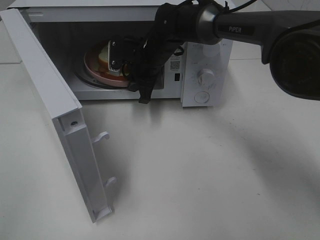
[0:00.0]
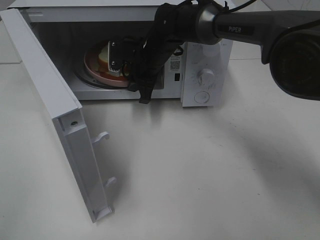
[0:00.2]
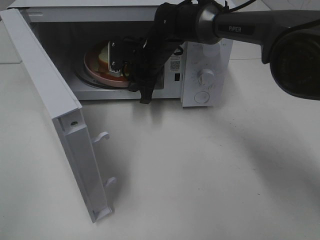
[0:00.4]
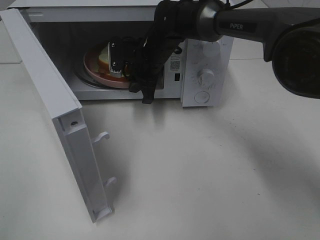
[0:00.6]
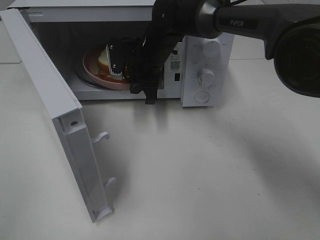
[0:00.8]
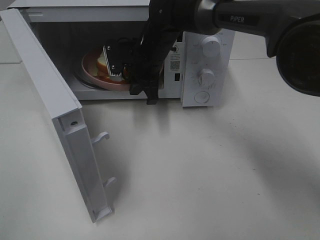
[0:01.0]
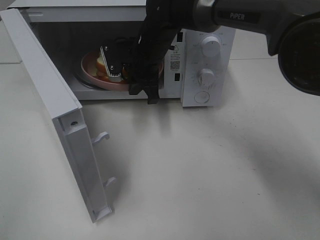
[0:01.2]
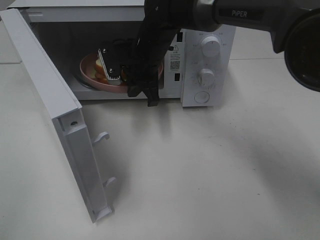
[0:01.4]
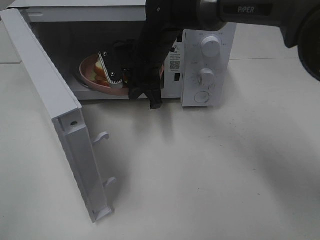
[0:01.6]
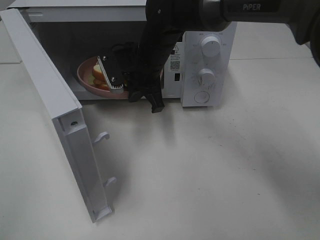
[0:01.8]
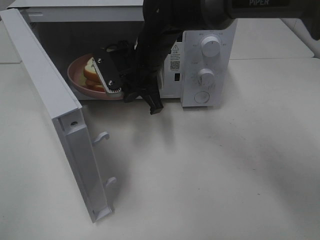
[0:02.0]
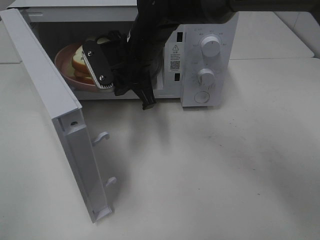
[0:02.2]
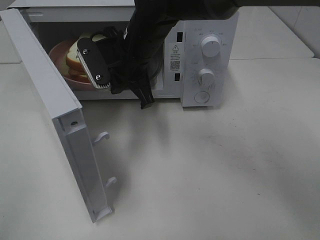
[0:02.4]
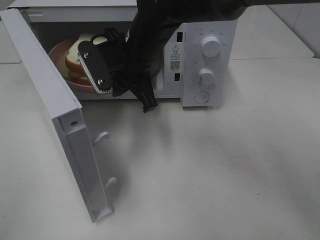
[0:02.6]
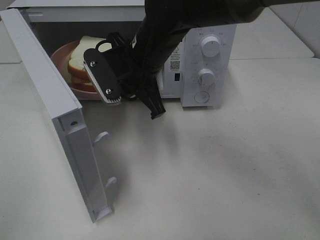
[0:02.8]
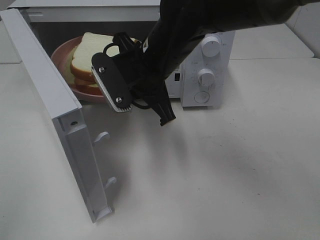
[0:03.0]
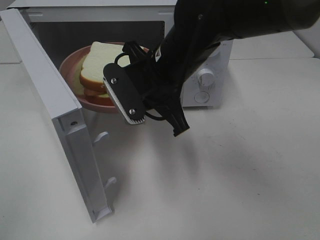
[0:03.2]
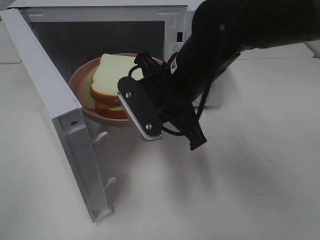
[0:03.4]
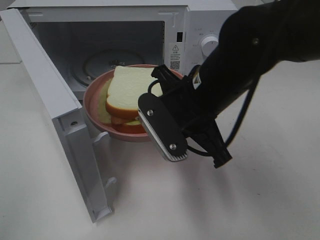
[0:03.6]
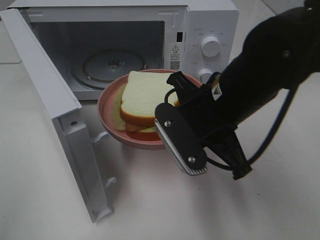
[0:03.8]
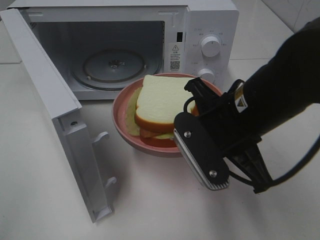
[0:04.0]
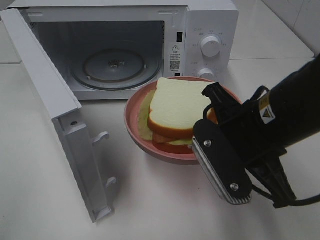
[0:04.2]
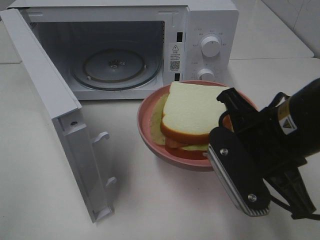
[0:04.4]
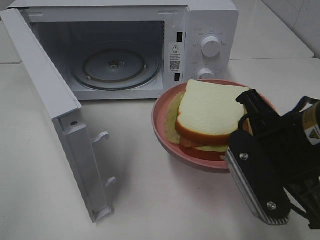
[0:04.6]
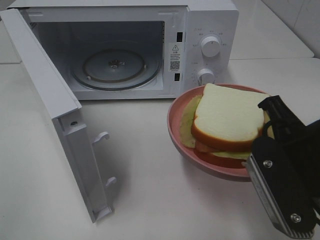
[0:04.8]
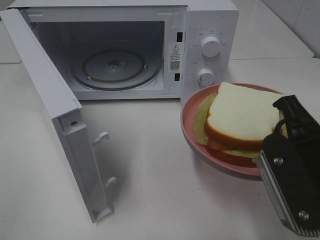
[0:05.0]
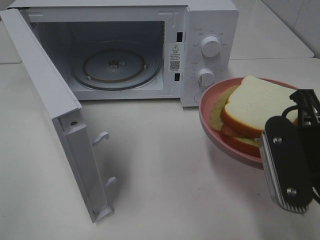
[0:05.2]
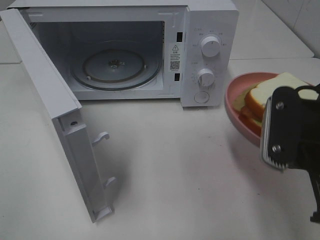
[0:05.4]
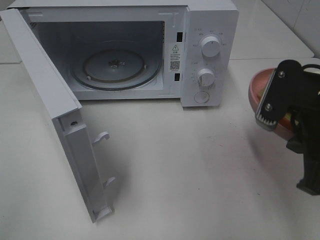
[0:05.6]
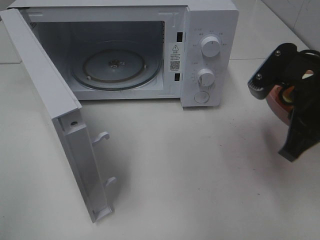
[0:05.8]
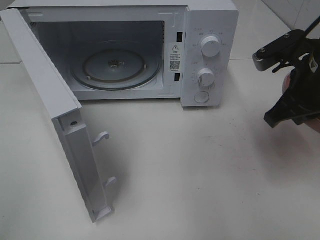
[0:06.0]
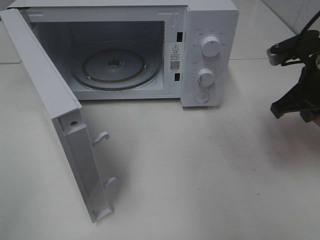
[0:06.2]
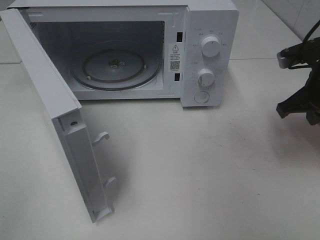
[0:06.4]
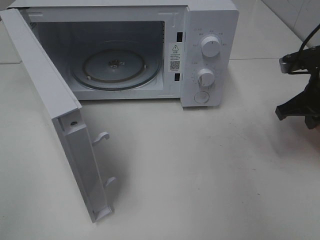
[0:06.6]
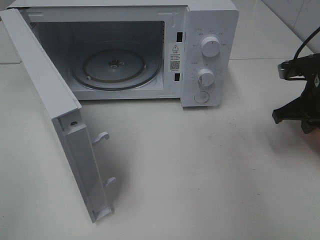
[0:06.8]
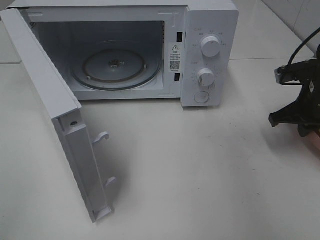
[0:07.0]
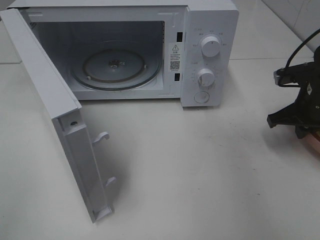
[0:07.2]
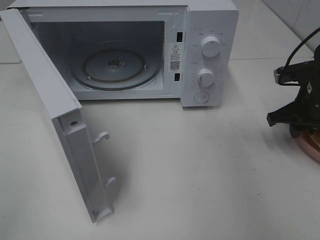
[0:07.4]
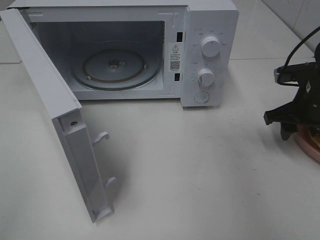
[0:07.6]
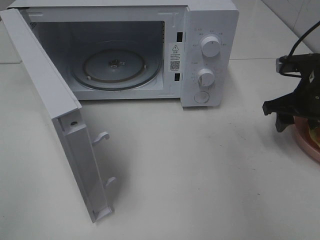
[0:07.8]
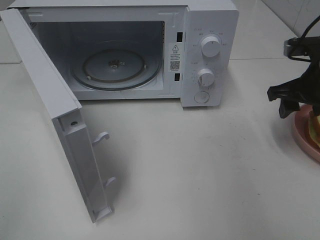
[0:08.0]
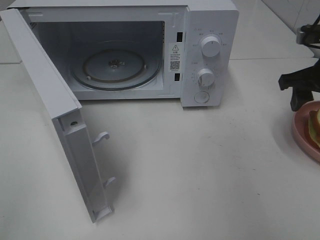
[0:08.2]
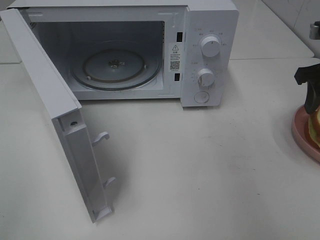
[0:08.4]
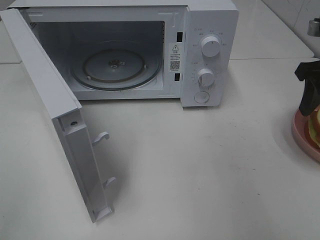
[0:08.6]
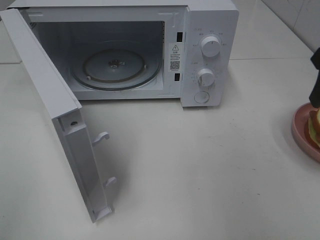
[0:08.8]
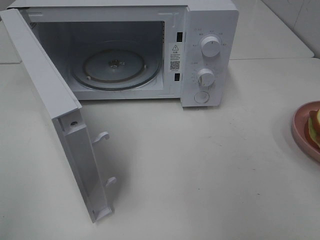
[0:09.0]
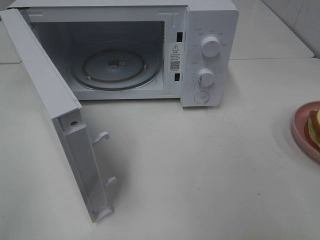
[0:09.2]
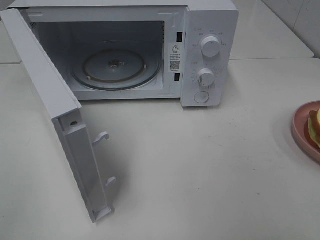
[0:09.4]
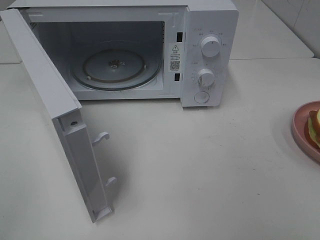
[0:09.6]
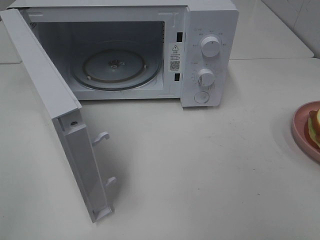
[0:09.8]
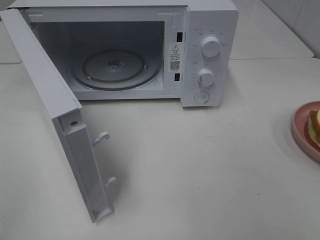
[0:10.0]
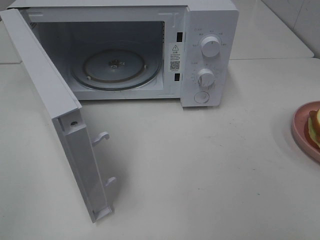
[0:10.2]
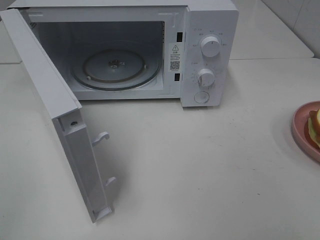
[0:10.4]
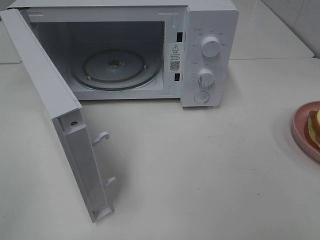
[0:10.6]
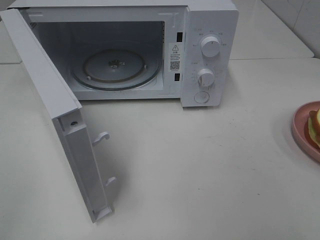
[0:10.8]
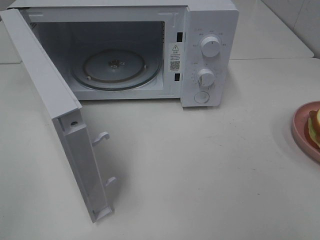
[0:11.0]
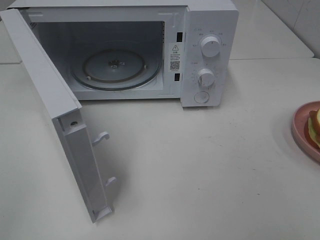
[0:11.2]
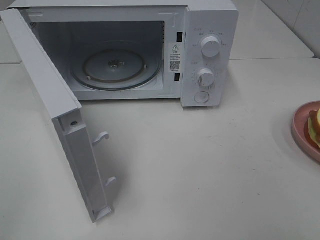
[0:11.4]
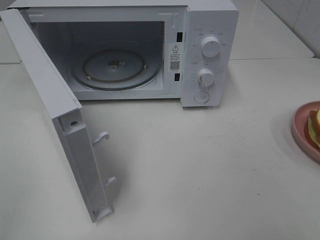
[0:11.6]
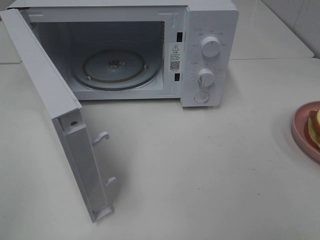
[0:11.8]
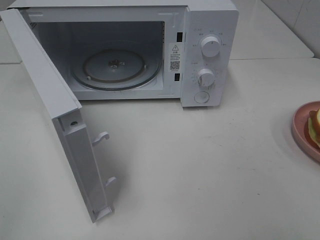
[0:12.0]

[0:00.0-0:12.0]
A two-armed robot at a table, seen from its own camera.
Task of the whole recording: Heat Sandwich.
Step, 0:00.8 to 0:08.4: Right hand: place the plate on the table.
0:00.0 to 0:01.6: The right gripper shifts by some 5 cm.
0:01.6 to 0:03.0: The right gripper shifts about 10 cm backward.
0:03.0 to 0:04.4: The right gripper moves backward and to the right, about 20 cm.
0:04.4 to 0:06.0: The right gripper heads forward and to the right, covering approximately 15 cm.
0:06.0 to 0:07.6: The right gripper heads downward, to the right and forward, covering approximately 10 cm, and opens its fingers.
0:07.6 to 0:09.0: The right gripper goes some 20 cm upward and backward.

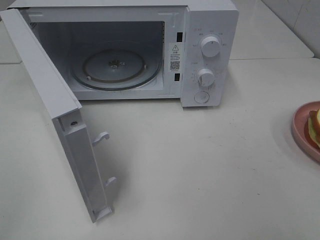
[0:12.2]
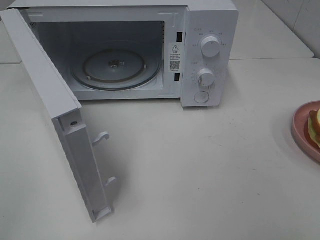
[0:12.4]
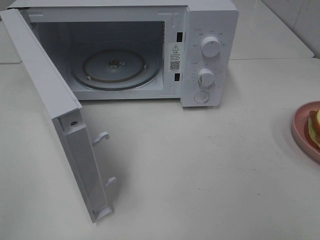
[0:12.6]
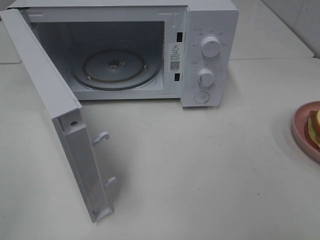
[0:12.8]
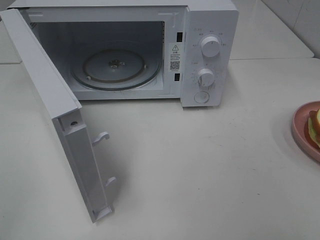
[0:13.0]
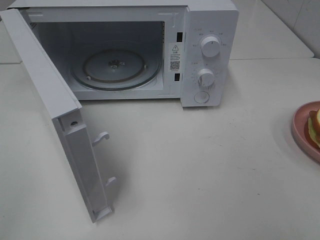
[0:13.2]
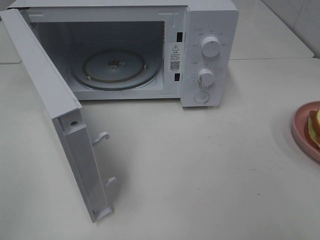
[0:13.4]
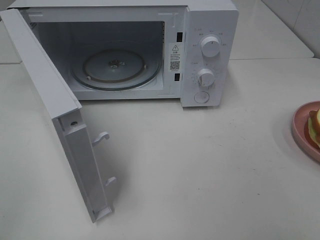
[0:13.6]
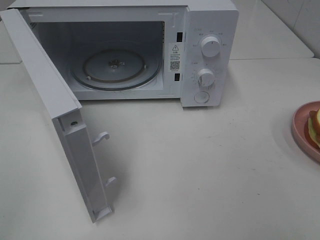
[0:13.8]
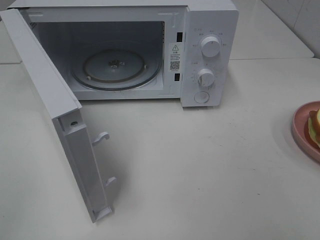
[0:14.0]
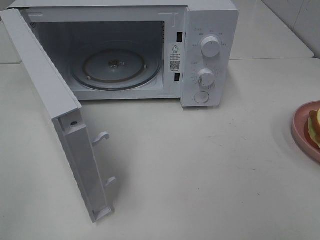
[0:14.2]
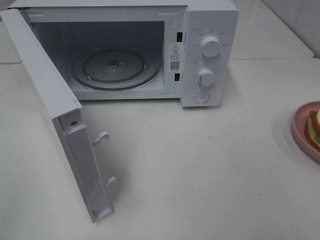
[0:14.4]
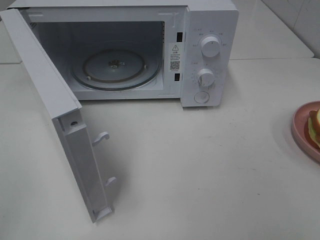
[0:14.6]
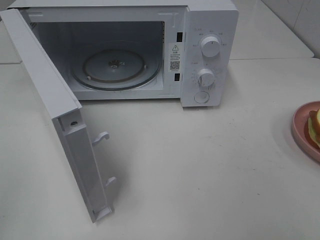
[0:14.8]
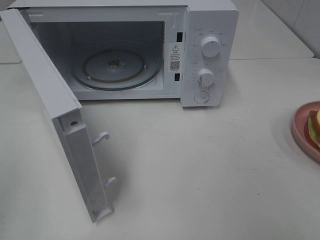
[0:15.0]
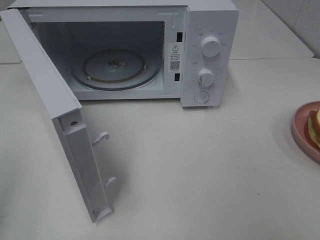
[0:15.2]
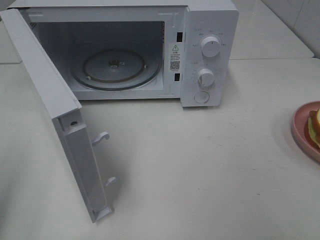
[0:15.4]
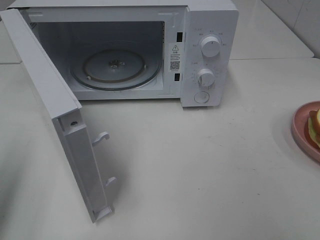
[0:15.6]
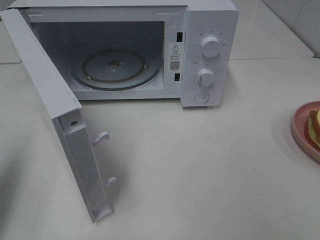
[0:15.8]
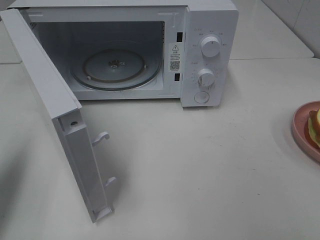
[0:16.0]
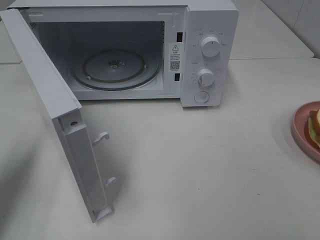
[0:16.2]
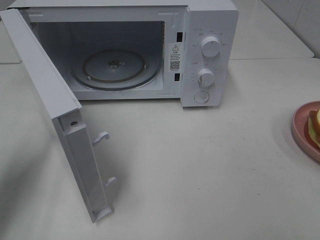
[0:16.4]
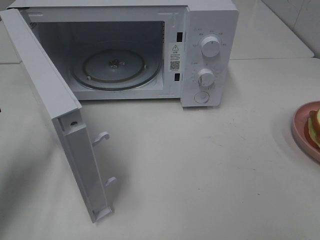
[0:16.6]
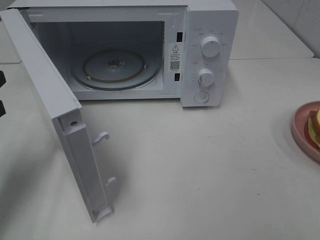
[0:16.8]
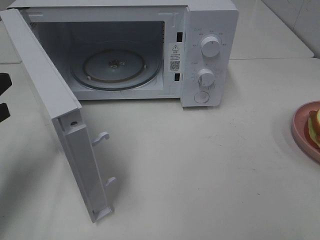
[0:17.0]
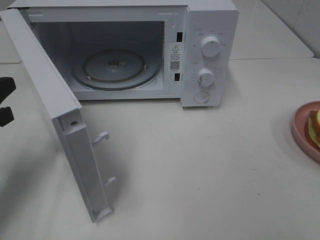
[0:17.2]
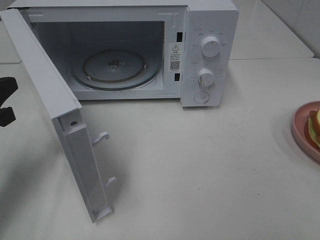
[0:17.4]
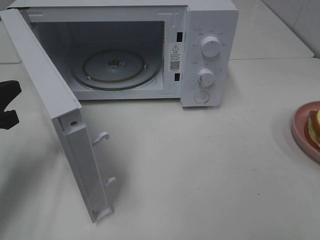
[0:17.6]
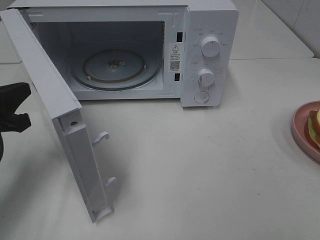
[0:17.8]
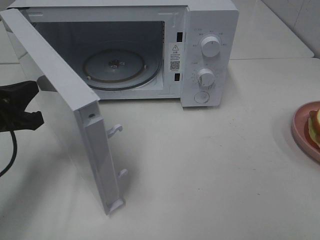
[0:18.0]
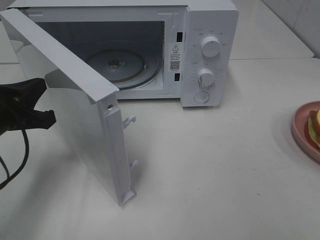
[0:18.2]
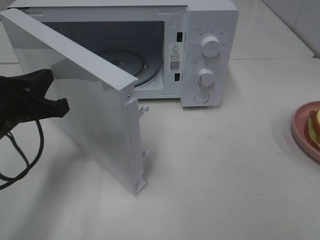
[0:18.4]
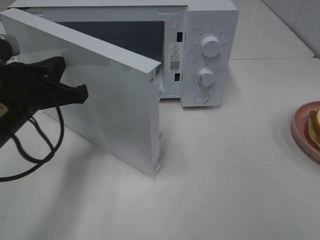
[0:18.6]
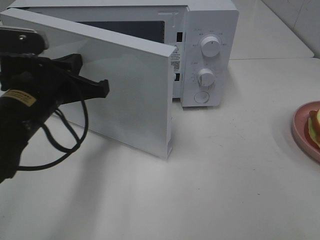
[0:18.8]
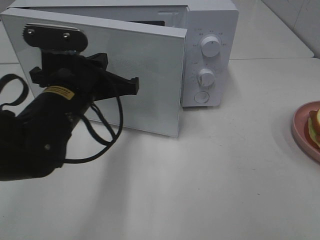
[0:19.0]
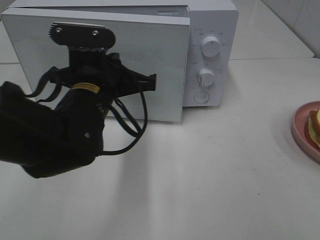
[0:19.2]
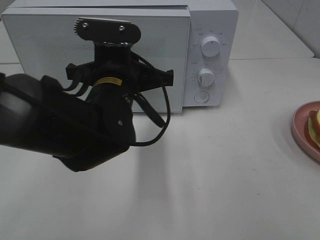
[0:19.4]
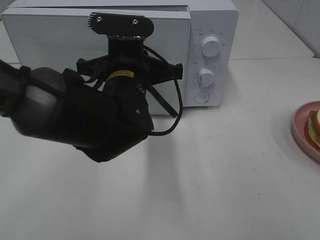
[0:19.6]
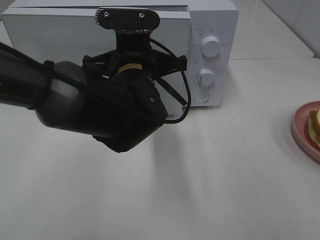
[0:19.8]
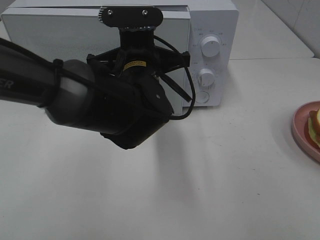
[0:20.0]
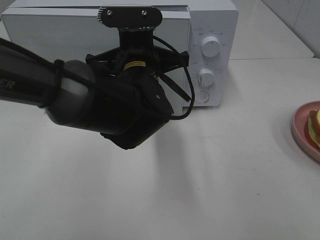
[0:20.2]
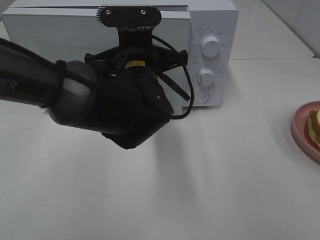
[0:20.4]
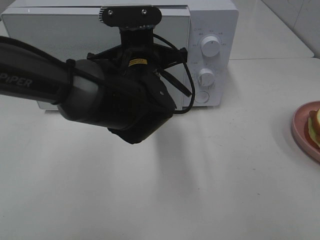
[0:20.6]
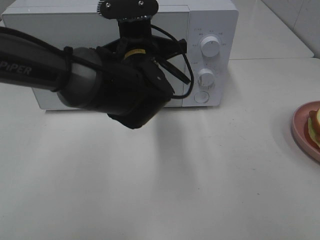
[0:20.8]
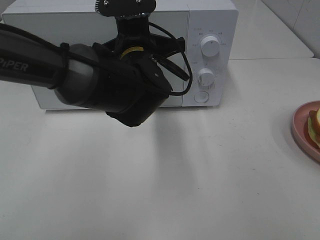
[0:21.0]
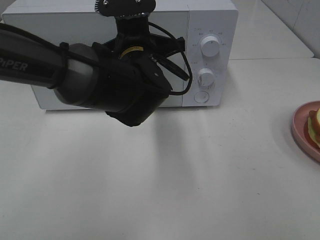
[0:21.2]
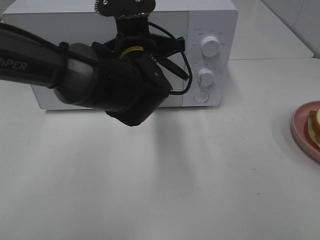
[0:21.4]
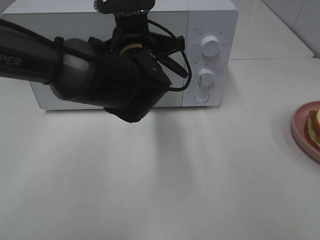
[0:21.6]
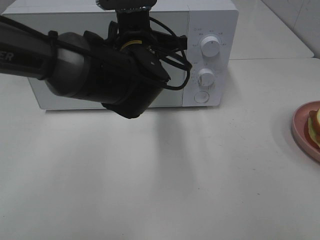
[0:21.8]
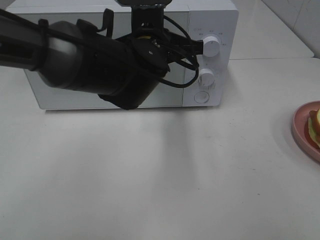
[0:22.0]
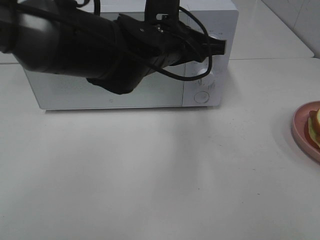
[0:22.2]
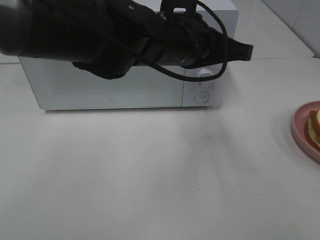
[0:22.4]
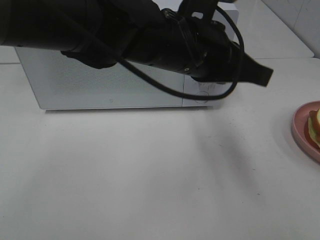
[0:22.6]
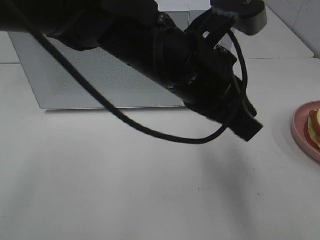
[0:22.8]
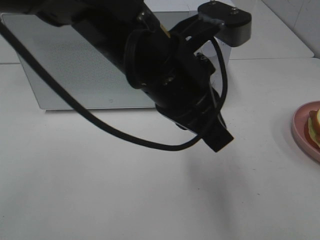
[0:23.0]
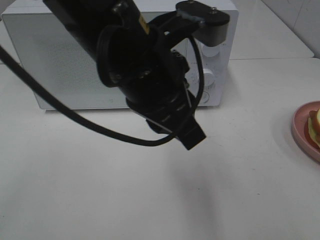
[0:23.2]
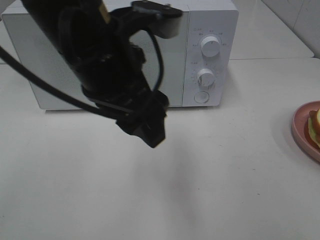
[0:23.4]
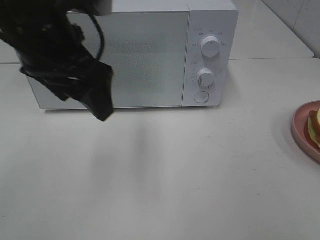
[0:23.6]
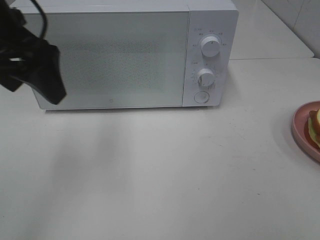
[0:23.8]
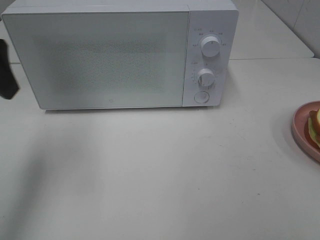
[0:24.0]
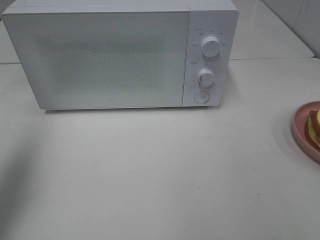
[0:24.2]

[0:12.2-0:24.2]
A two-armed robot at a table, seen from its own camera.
Task of the whole recording: Heat Sandwich.
Step, 0:12.2 to 0:22.4: Left hand: close the microwave door.
0:12.2 to 0:13.8: Neither gripper changes place.
0:15.2 to 0:16.6: The left gripper travels forward and downward by approximately 20 cm.
0:16.6 to 0:18.2: The left gripper goes roughly 5 cm to the right.
0:18.2 to 0:19.8: The left gripper travels to the right by approximately 20 cm.
0:19.8 to 0:21.2: The grippers stay close to where they were, moving slightly.
0:21.2 to 0:22.6: The left gripper goes some 10 cm backward, upward and to the right.
0:22.6 to 0:24.2: The left gripper goes roughly 35 cm to the left, and opens its fingers.
